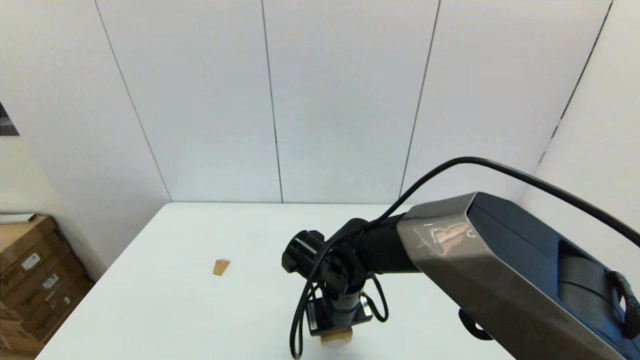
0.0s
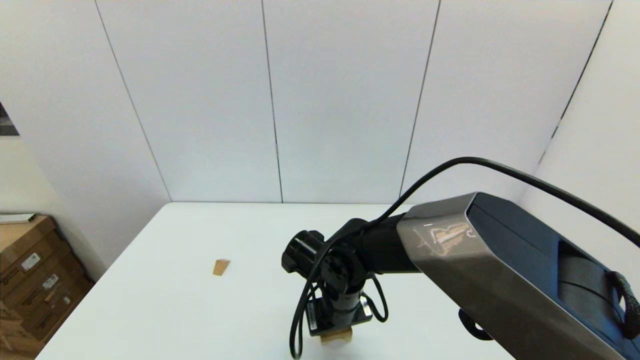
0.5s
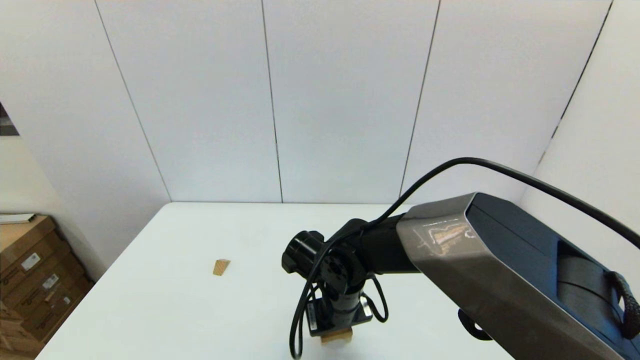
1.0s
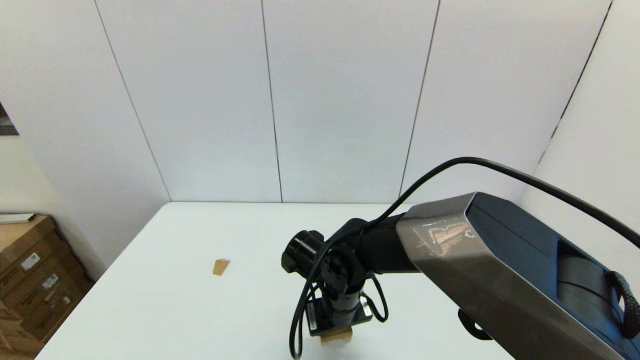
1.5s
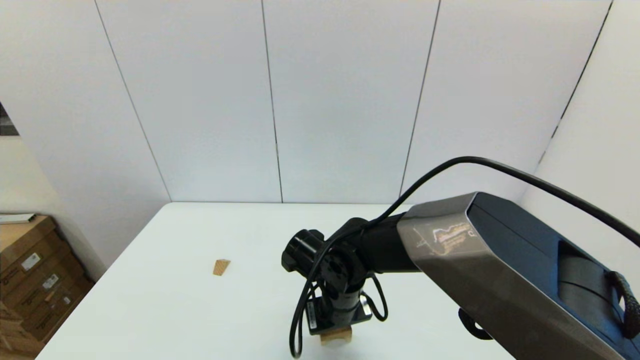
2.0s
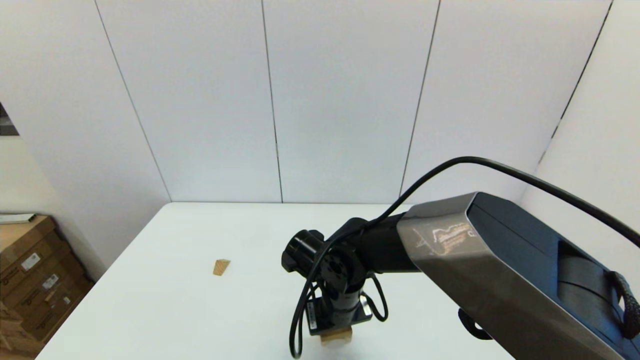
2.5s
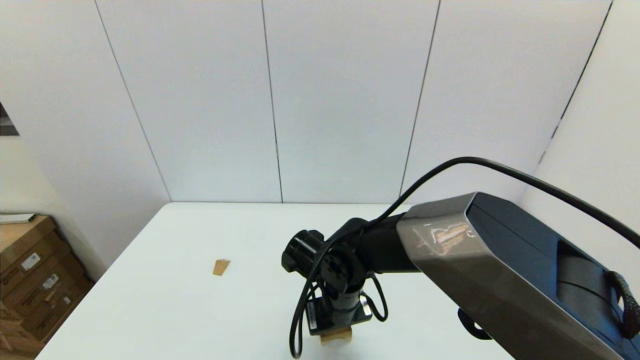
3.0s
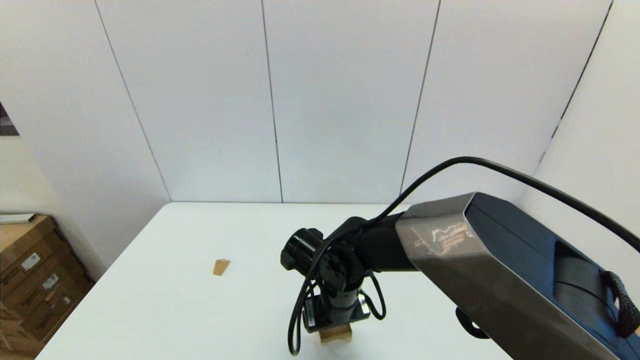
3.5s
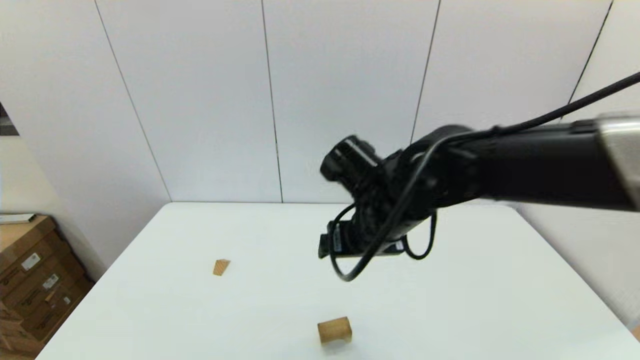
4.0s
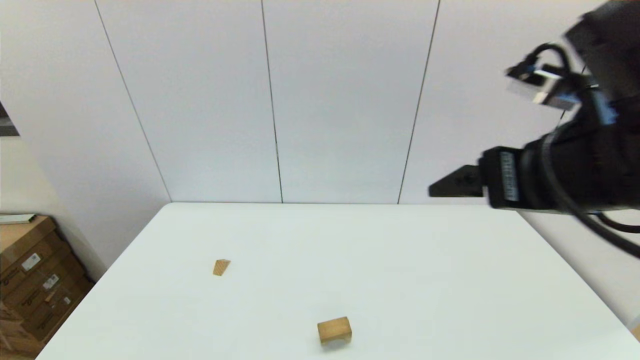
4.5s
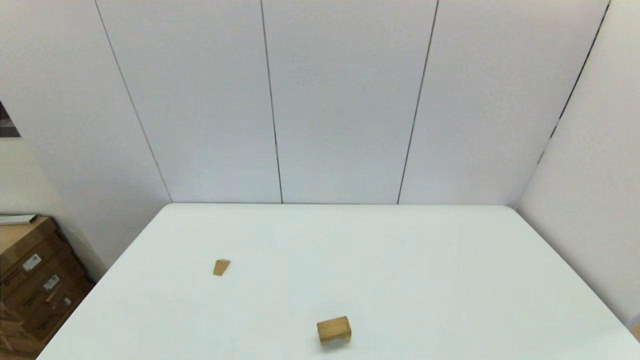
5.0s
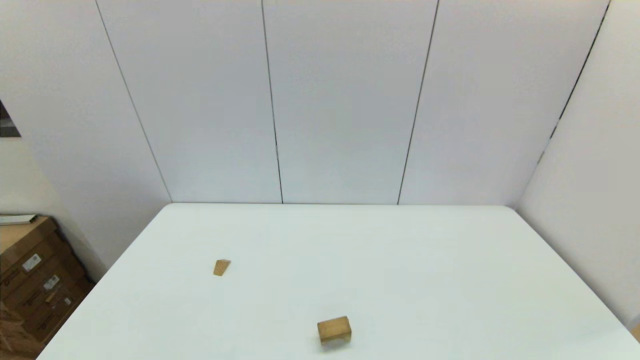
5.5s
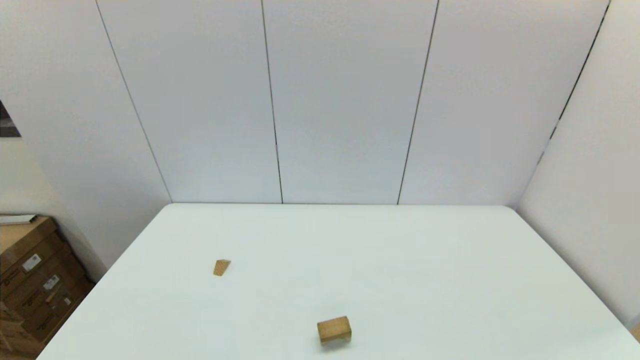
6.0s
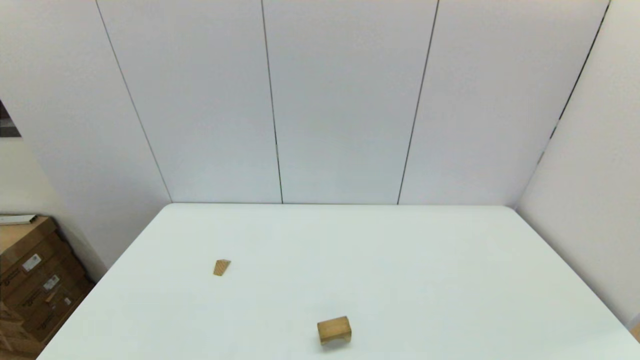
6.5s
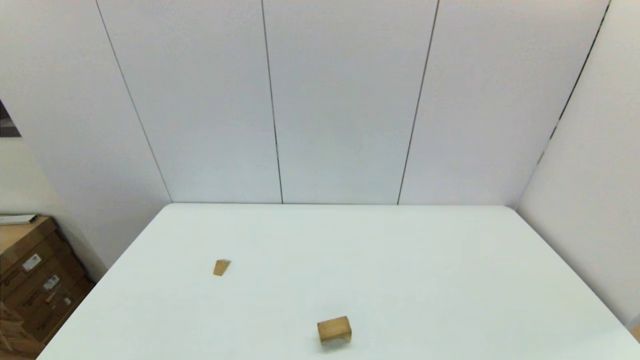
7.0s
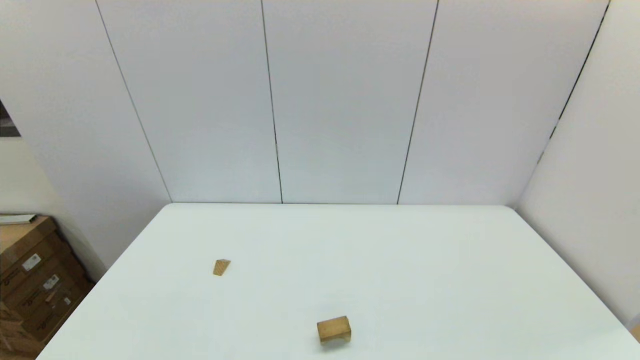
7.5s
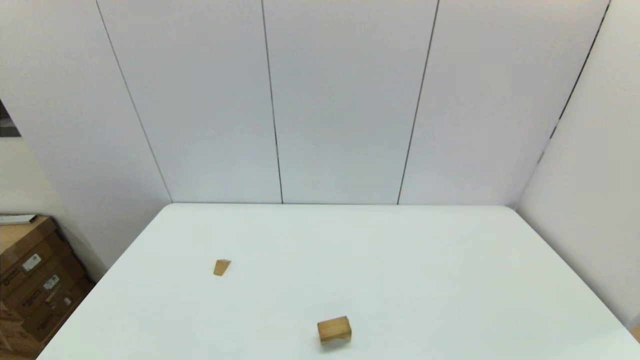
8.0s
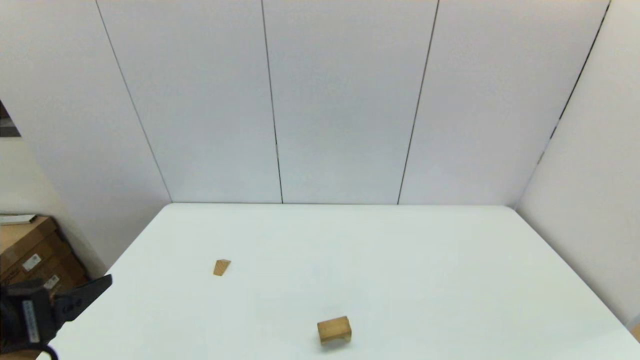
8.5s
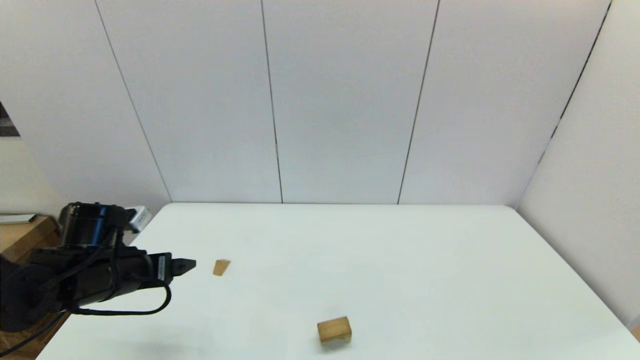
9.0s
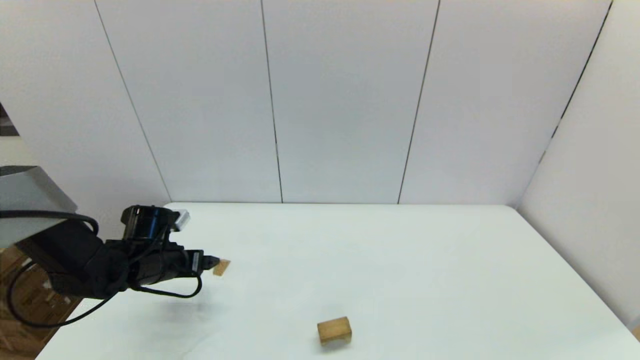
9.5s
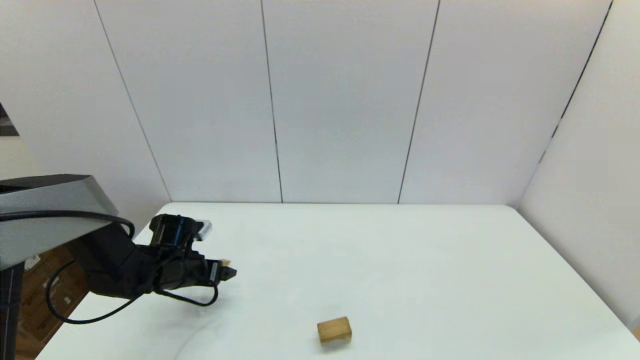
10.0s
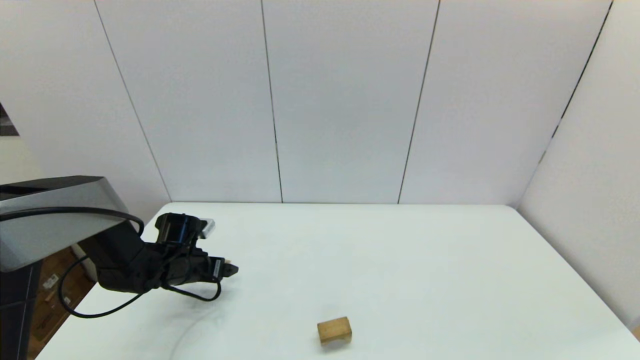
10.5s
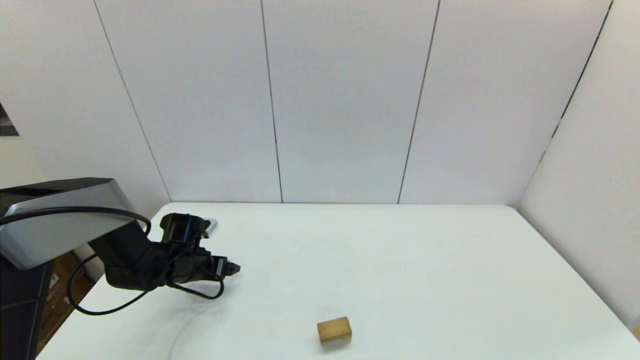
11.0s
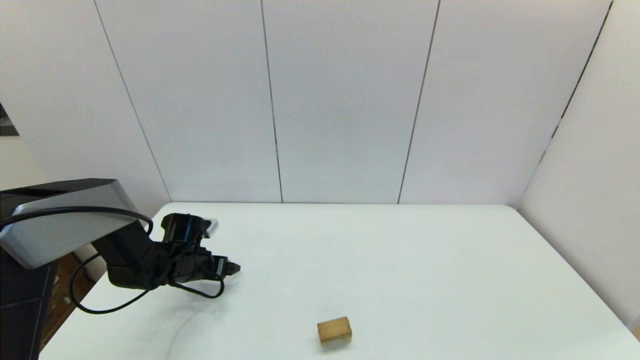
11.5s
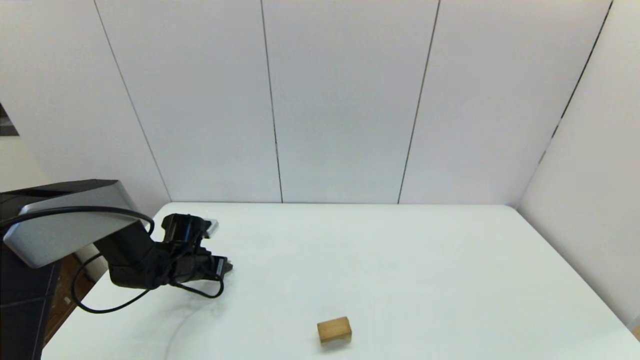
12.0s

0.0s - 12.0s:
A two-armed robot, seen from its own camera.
Task of the whole recording: place the arched building blocks in the center of the table, set up the rectangular building blocks, and then set up the triangular building blocks.
Step, 0.0s - 3.0s: Place the box-shaped block onto the arch-shaped block with the right gripper.
0.0s - 2.0s: Both grippers stay about where they are.
2.0s - 4.0s: The right gripper is displaced upward by roughly 15 cm, and opens its fingers.
4.0s - 6.0s: The right gripper shifts about 40 cm backward and to the right.
8.0s - 10.0s: The left gripper goes approximately 40 cm forward and downward.
10.0s - 12.0s: The left gripper closes.

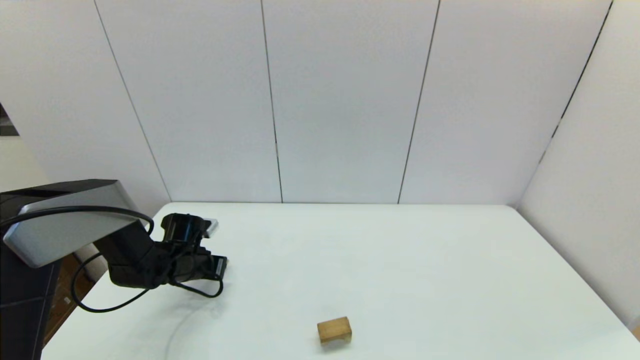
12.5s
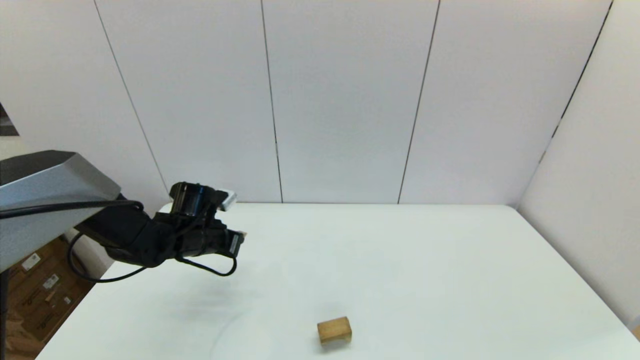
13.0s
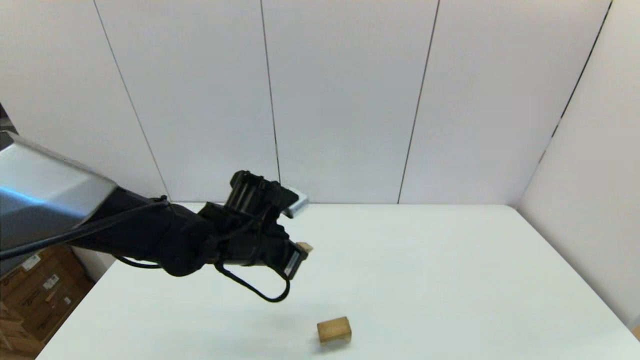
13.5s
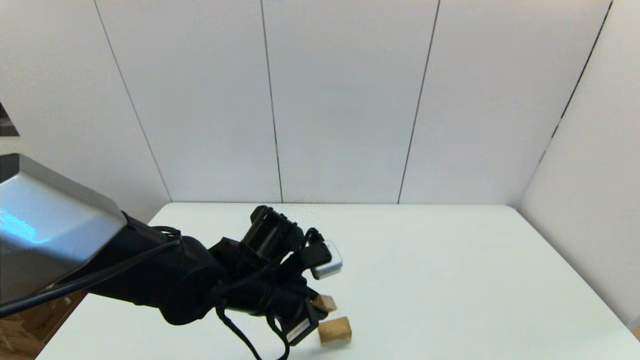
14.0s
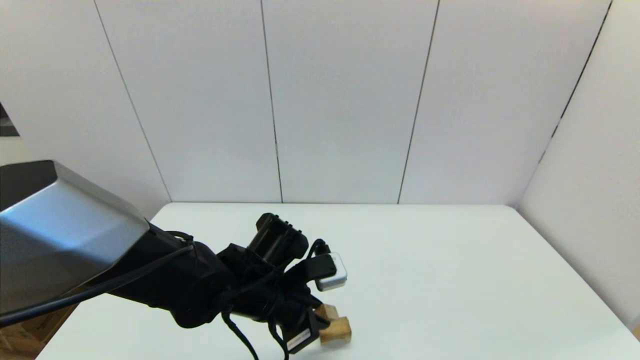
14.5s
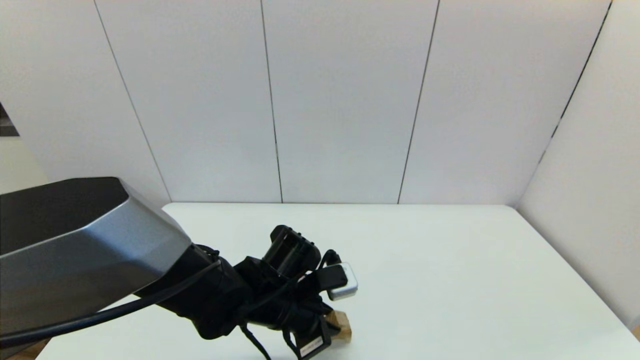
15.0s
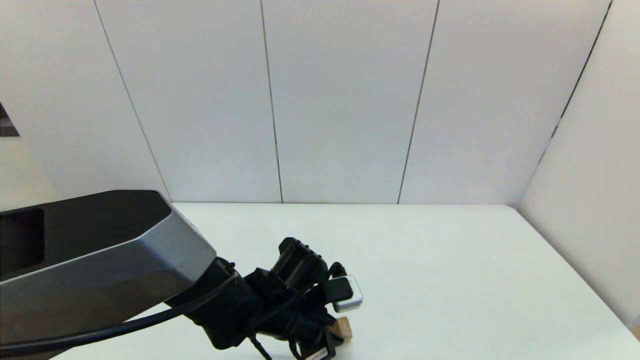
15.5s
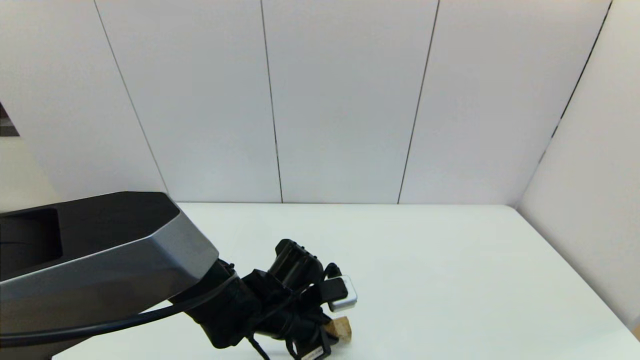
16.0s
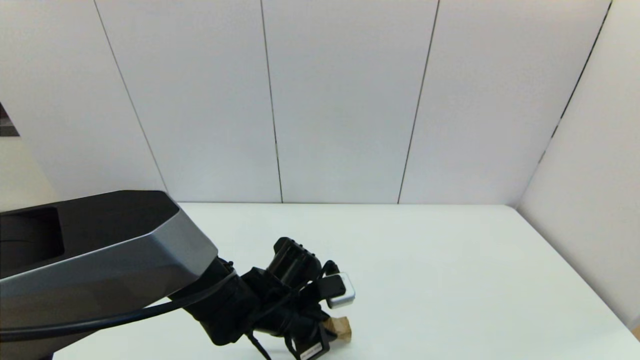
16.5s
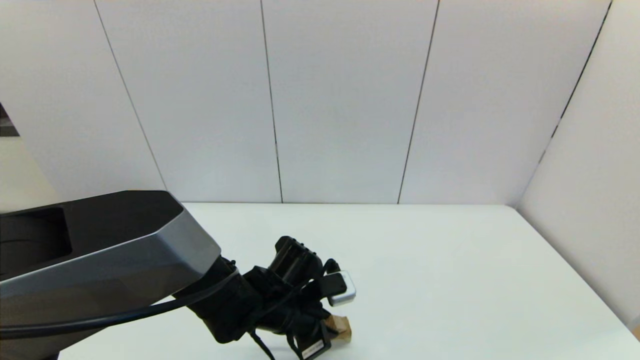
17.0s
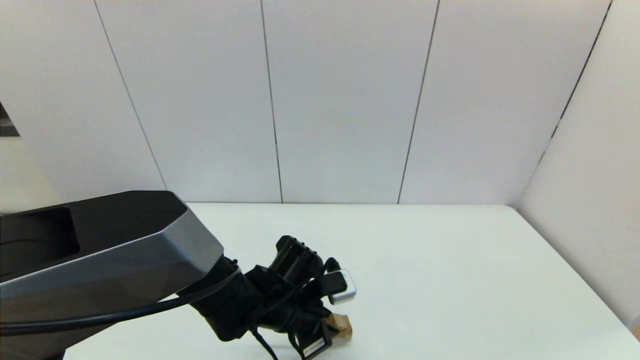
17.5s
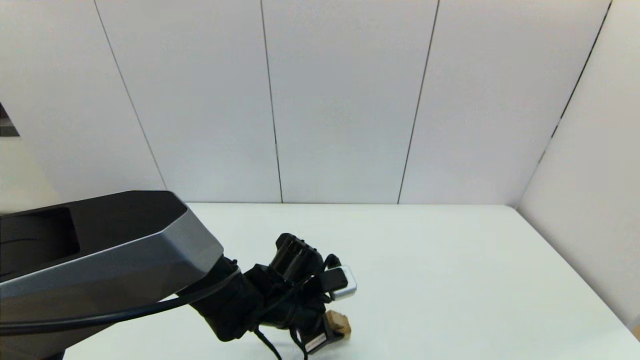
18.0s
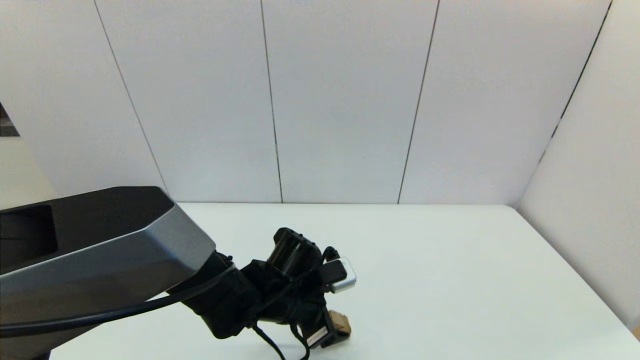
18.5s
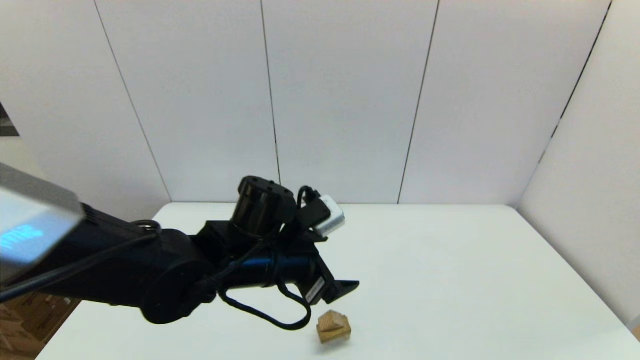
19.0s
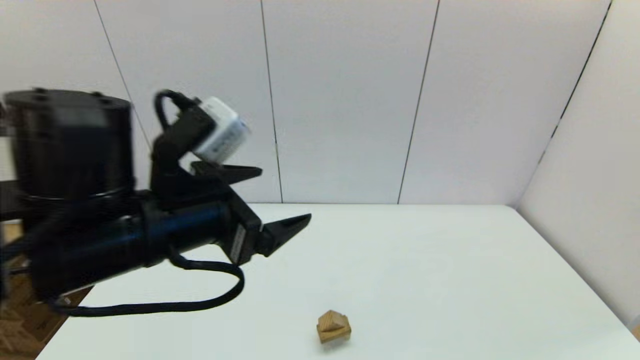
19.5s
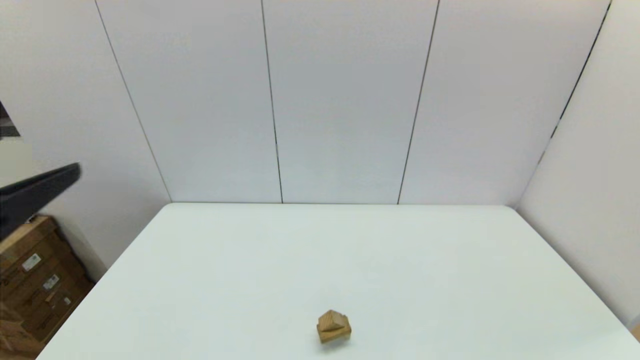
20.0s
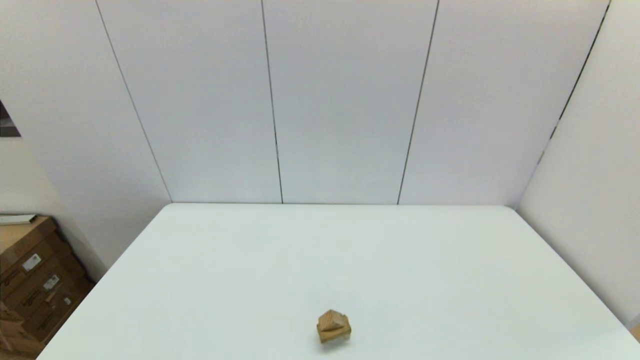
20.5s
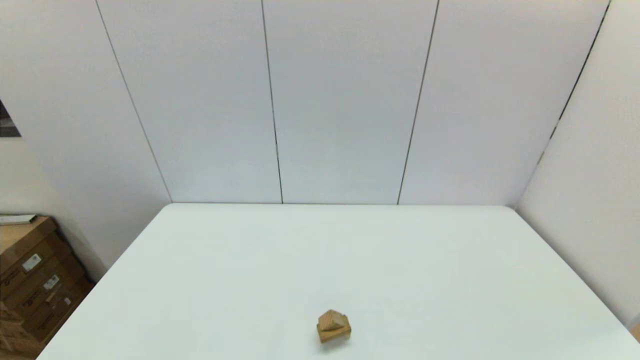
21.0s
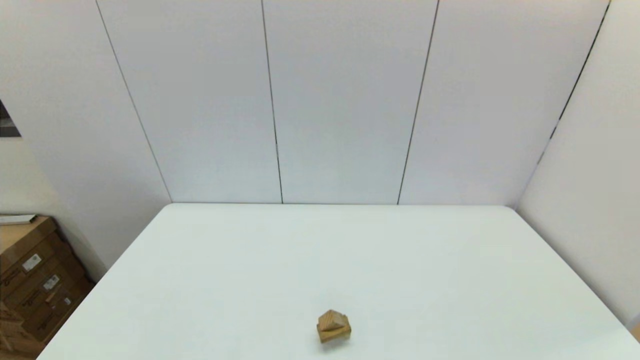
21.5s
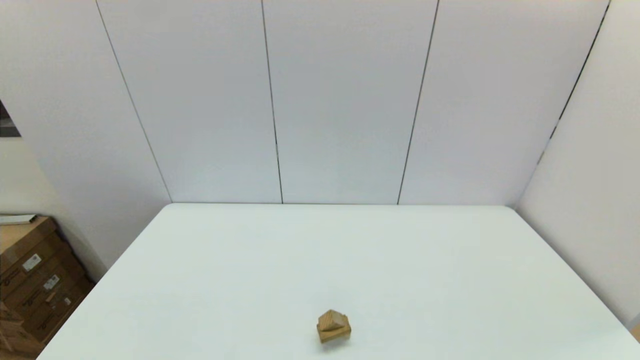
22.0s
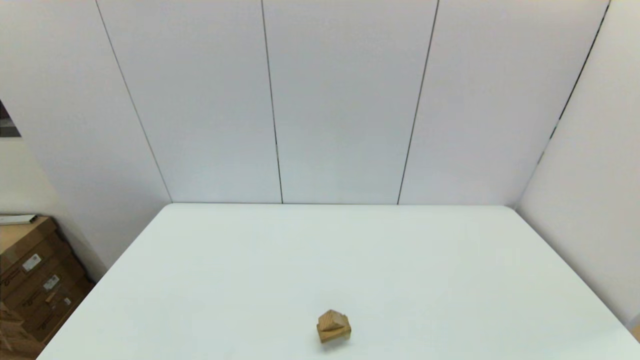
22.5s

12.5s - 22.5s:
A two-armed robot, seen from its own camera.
Task of the whole recording: place the arched building blocks in the center of the table, set up the rectangular building blocks, and then set up the triangular building blocks.
12.5s - 14.5s: The left gripper heads to the right, backward and upward, covering approximately 25 cm.
14.5s - 16.5s: The left gripper travels downward by about 5 cm.
16.5s - 18.5s: The left gripper opens.
18.5s - 20.5s: The left gripper goes approximately 40 cm backward, to the left and upward.
